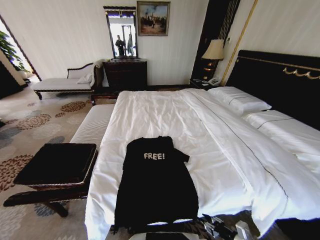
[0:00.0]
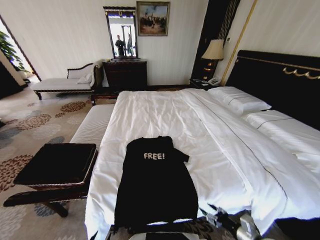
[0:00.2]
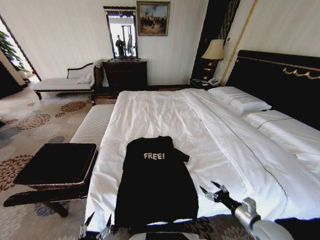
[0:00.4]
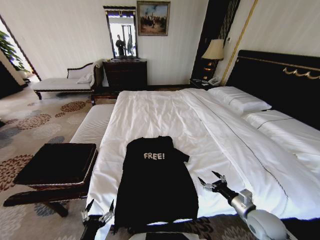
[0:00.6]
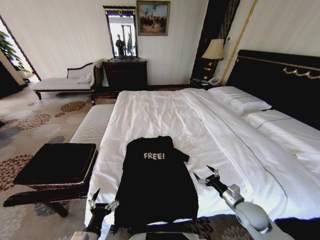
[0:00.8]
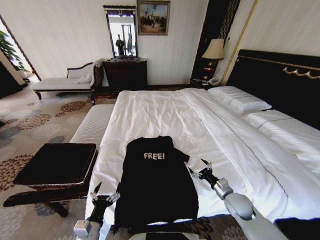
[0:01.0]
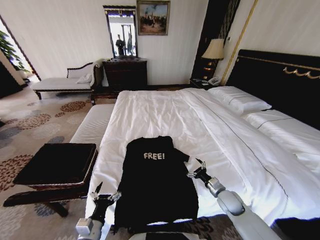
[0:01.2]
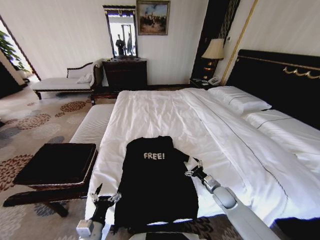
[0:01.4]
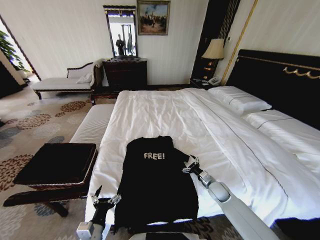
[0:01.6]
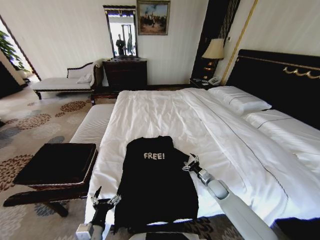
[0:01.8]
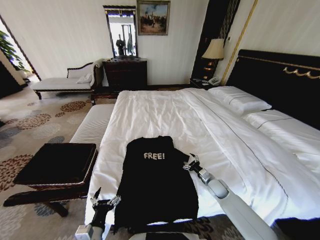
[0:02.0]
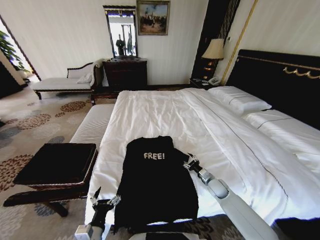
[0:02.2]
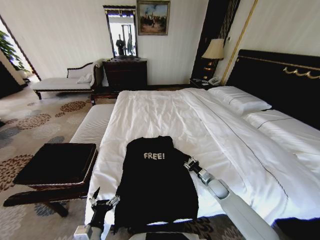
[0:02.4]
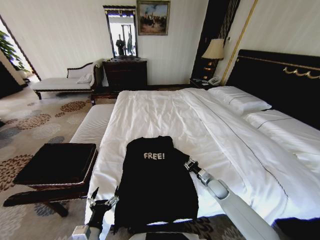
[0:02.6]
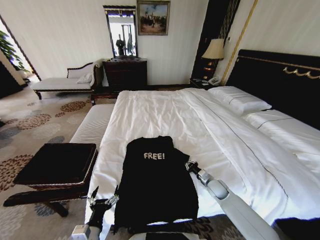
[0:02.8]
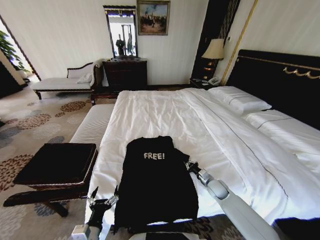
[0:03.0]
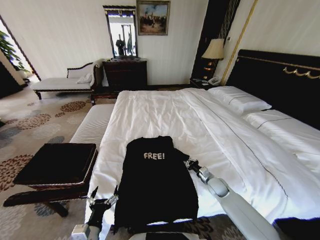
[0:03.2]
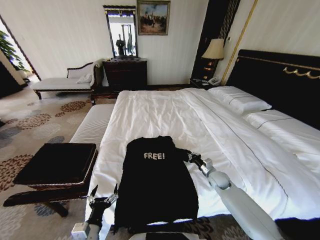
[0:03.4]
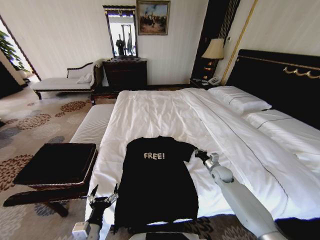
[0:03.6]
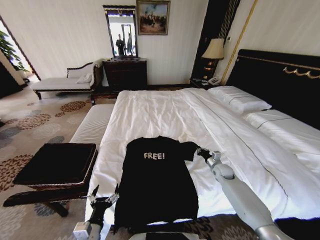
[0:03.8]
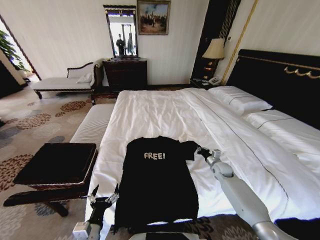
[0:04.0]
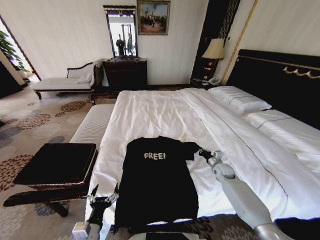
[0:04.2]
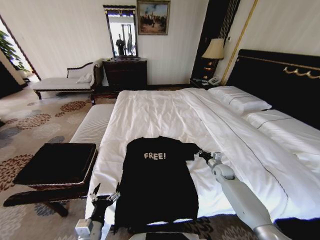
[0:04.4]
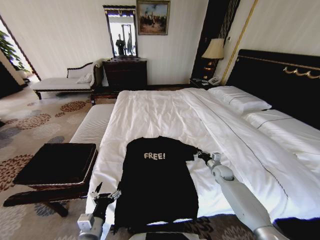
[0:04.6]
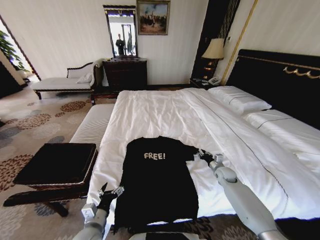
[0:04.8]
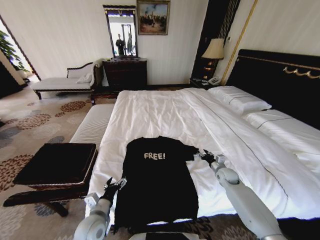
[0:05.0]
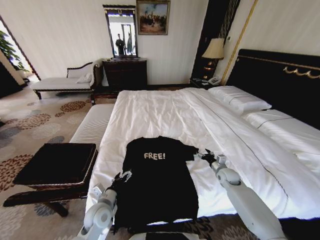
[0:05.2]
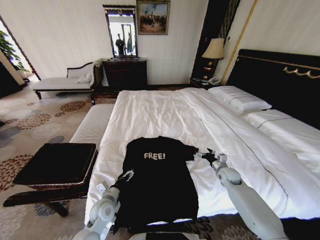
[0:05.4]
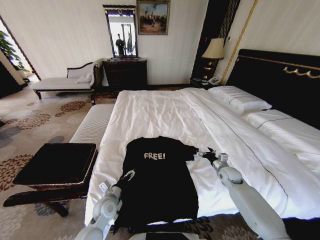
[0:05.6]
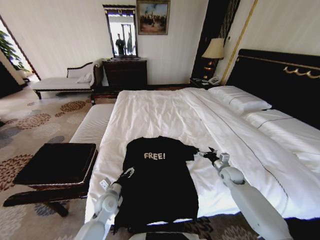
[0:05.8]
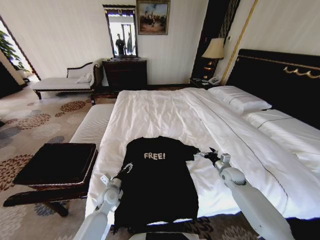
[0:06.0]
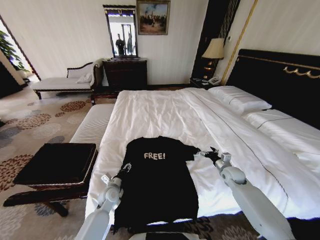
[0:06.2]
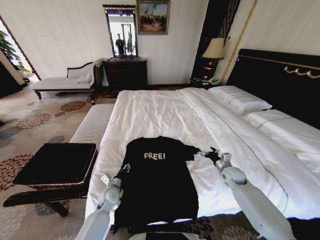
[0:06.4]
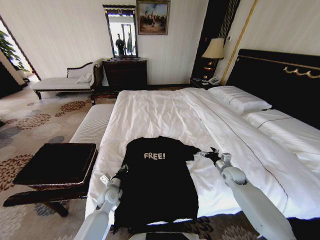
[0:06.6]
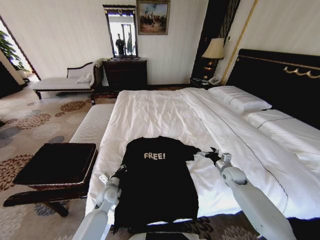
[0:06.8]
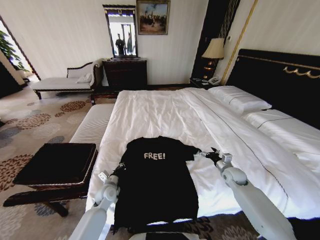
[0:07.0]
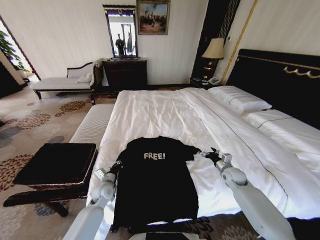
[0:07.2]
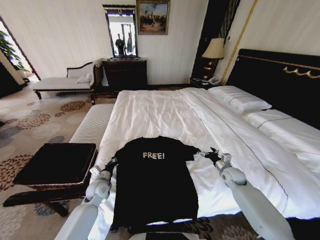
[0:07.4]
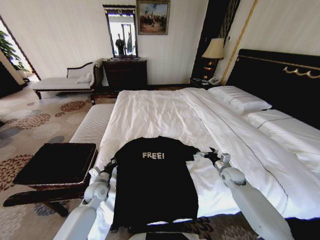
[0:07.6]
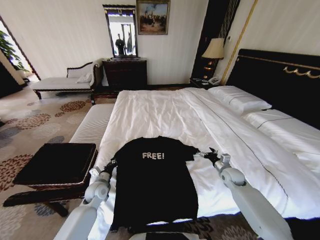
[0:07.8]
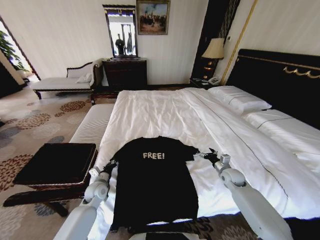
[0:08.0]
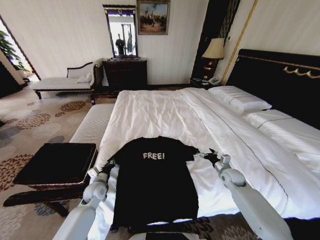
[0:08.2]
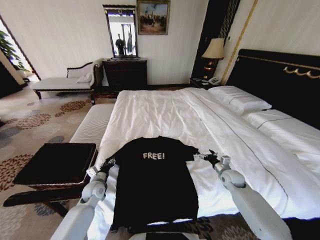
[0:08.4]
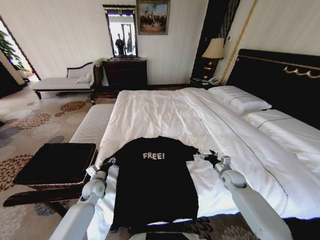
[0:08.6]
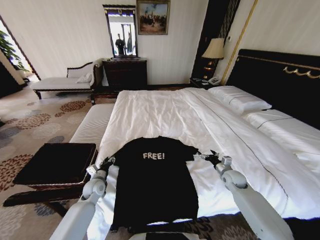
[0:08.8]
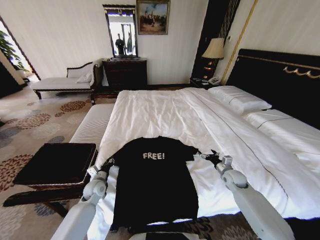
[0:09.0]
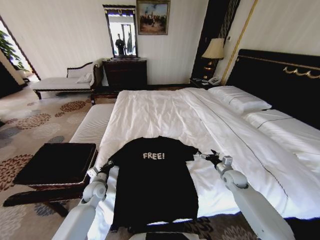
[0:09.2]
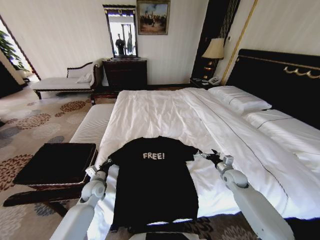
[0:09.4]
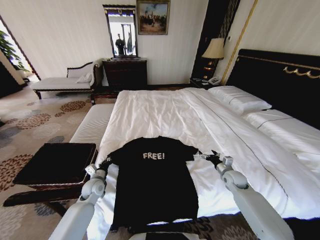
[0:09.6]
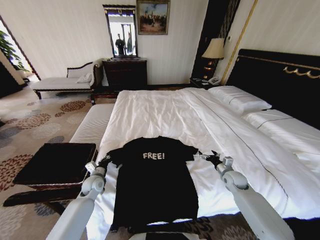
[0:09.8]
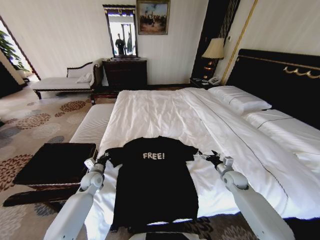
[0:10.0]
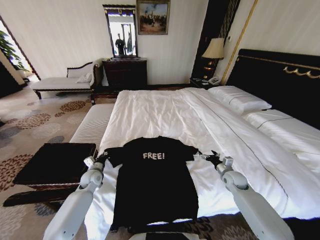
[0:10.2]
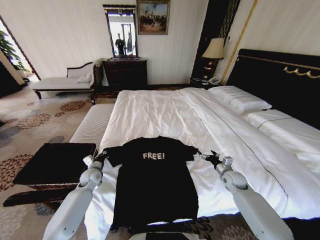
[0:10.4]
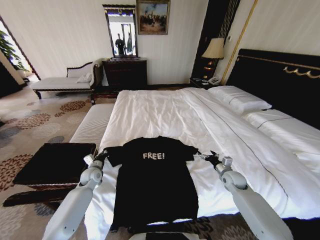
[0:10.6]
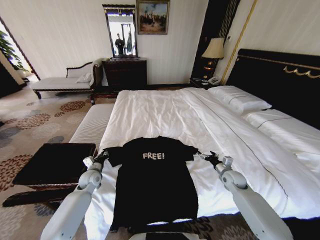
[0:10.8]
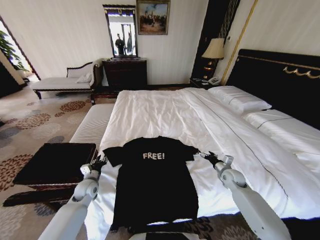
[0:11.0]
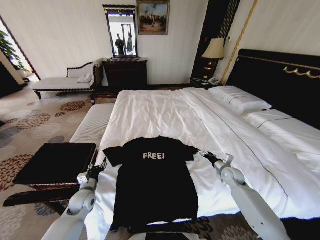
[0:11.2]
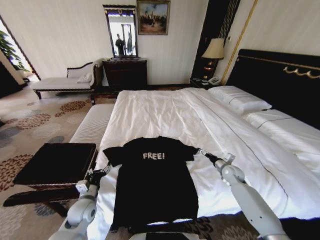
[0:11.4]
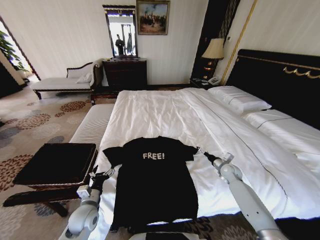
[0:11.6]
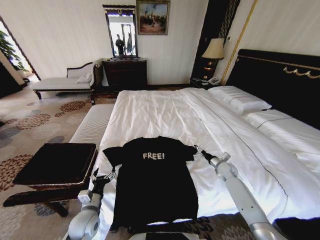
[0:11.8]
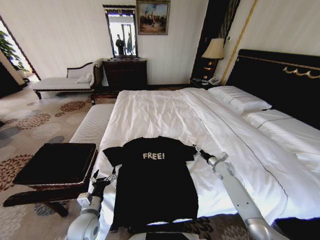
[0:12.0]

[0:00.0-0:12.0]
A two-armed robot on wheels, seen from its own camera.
Task of the whole recording: Fold the clothes on the bed and place them into the basket.
0:00.0 to 0:01.6: Both grippers travel together forward, some 20 cm. The left gripper opens up. The right gripper opens up.
0:01.6 to 0:03.0: The right gripper closes up.
0:03.0 to 0:04.4: The right gripper shifts approximately 10 cm forward and to the right.
0:04.4 to 0:06.0: The left gripper shifts about 20 cm forward. The right gripper opens up.
0:06.0 to 0:07.6: The left gripper heads to the left, covering about 5 cm, and closes up.
0:07.6 to 0:09.0: There are only small adjustments of the grippers.
0:09.0 to 0:10.4: The left gripper travels forward by roughly 5 cm.
0:10.4 to 0:12.0: The right gripper heads forward, covering about 5 cm, while the left gripper shifts roughly 20 cm backward, and opens.

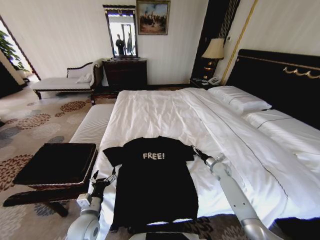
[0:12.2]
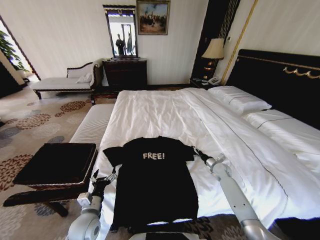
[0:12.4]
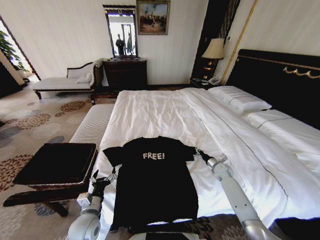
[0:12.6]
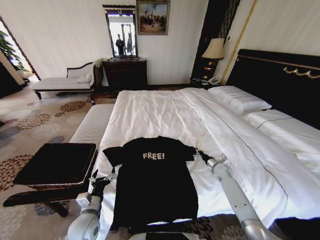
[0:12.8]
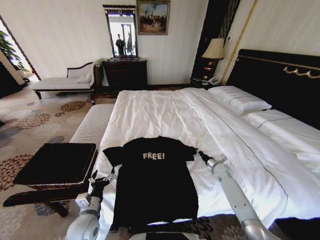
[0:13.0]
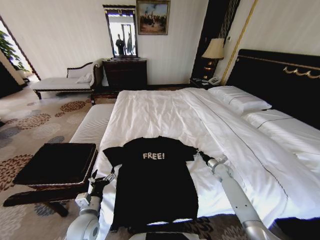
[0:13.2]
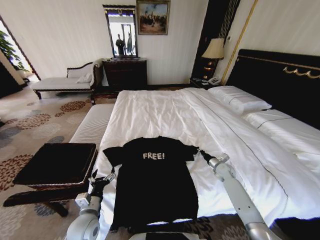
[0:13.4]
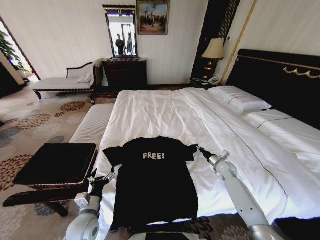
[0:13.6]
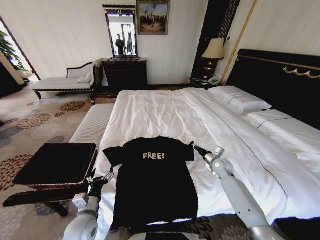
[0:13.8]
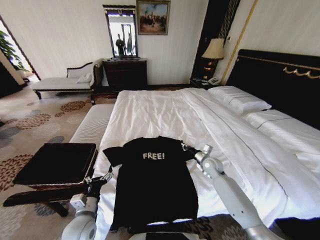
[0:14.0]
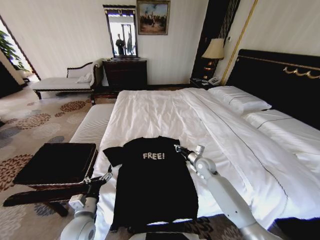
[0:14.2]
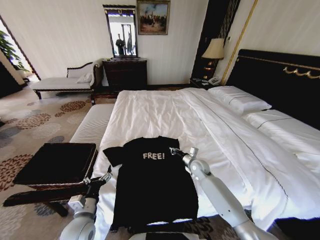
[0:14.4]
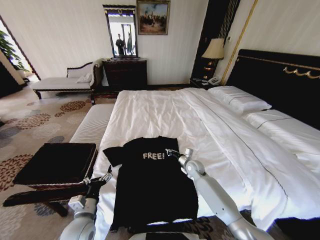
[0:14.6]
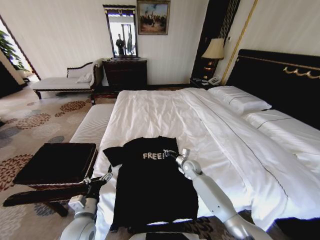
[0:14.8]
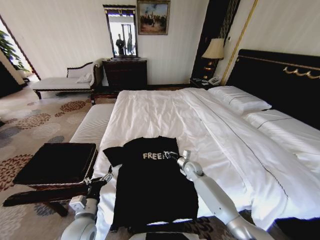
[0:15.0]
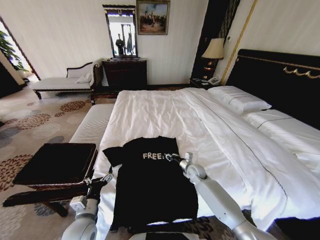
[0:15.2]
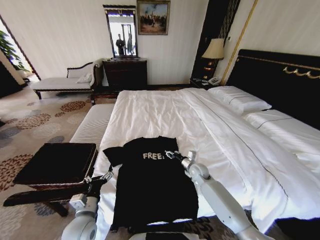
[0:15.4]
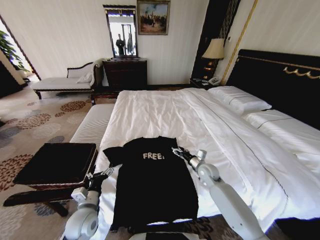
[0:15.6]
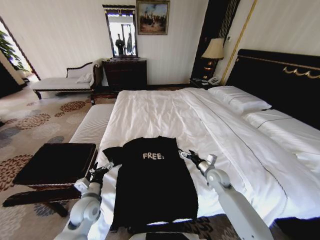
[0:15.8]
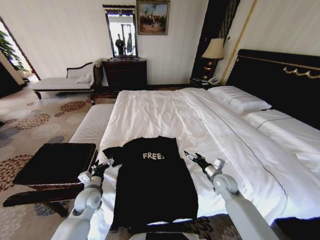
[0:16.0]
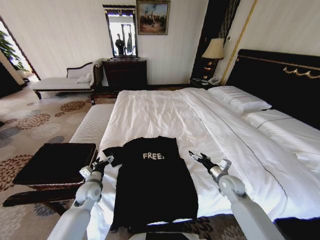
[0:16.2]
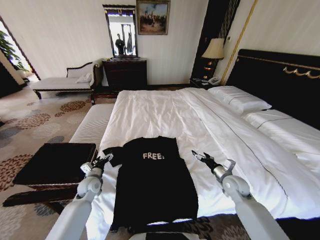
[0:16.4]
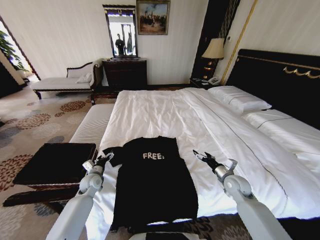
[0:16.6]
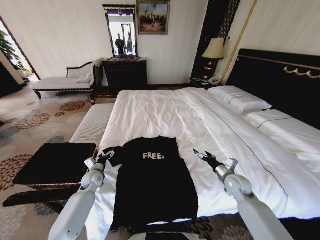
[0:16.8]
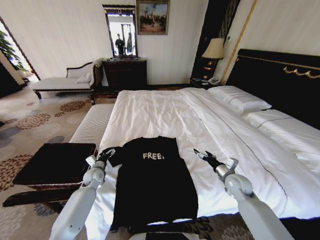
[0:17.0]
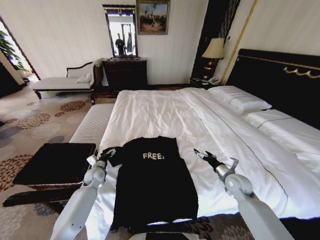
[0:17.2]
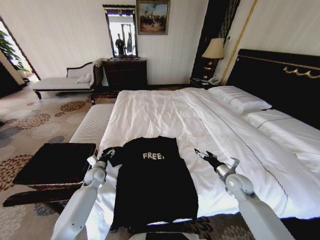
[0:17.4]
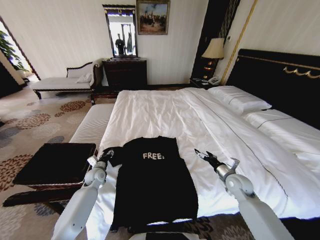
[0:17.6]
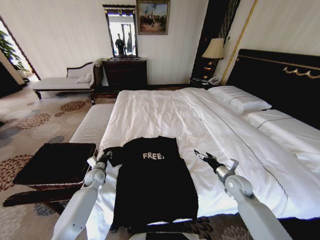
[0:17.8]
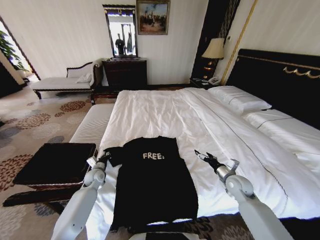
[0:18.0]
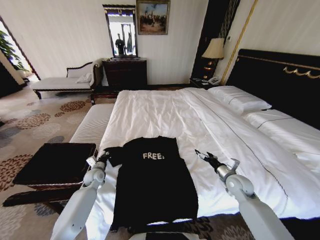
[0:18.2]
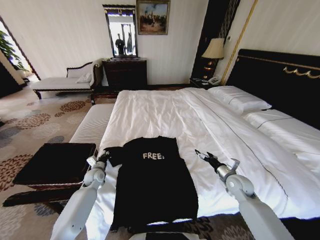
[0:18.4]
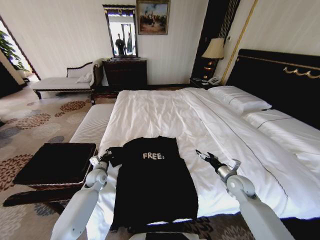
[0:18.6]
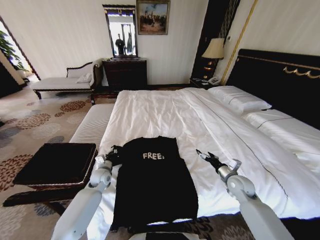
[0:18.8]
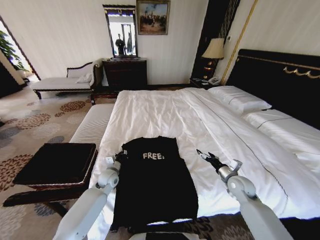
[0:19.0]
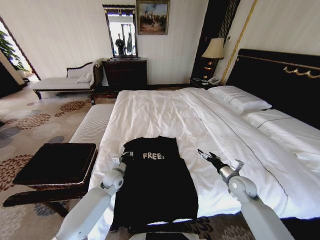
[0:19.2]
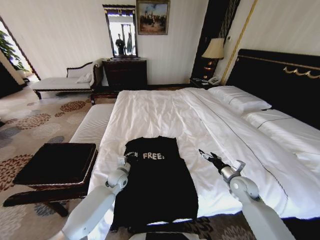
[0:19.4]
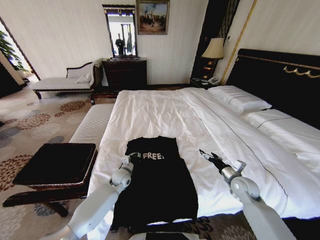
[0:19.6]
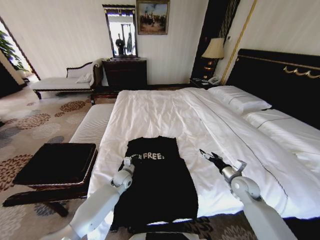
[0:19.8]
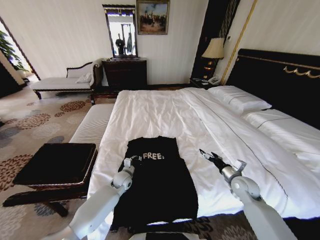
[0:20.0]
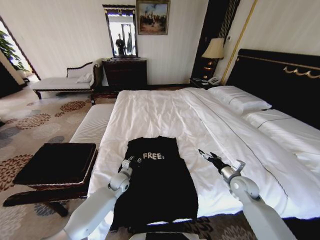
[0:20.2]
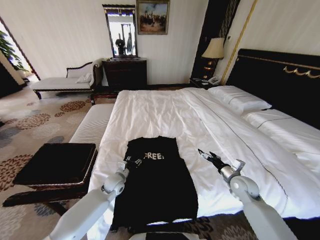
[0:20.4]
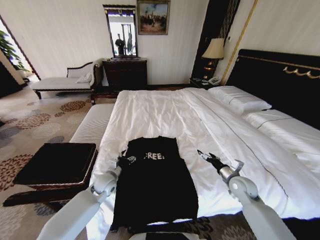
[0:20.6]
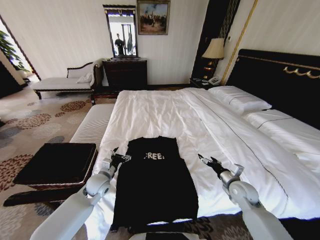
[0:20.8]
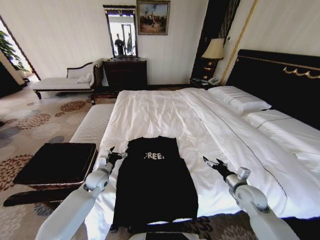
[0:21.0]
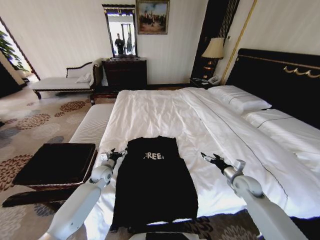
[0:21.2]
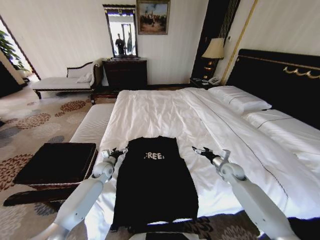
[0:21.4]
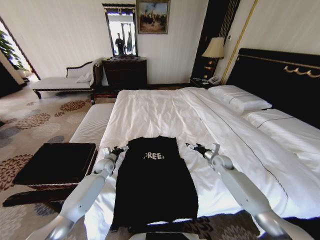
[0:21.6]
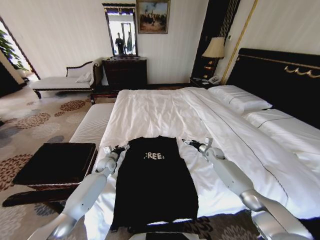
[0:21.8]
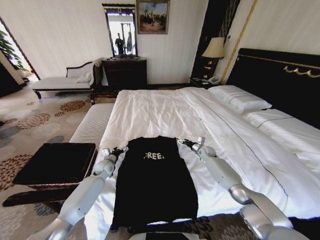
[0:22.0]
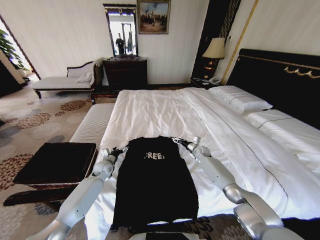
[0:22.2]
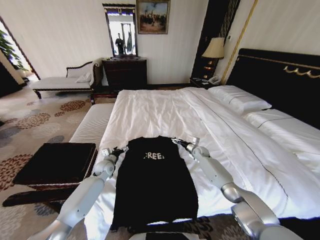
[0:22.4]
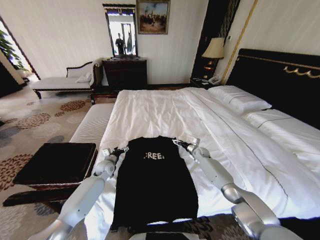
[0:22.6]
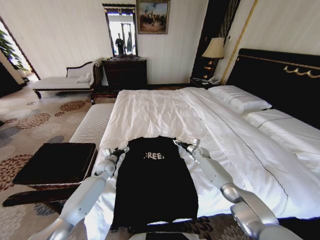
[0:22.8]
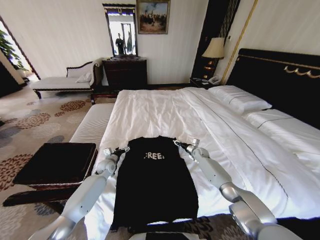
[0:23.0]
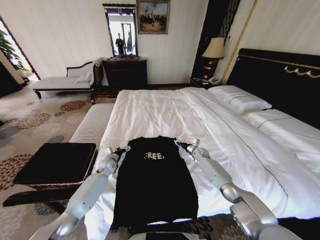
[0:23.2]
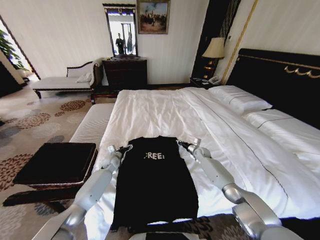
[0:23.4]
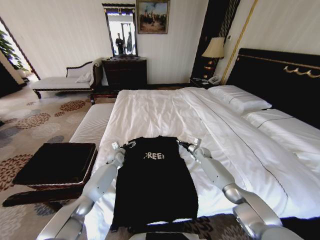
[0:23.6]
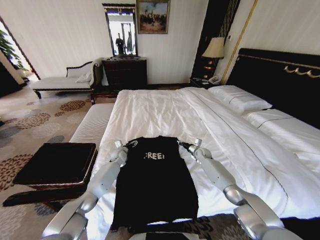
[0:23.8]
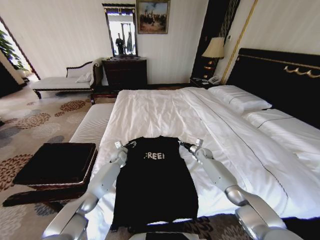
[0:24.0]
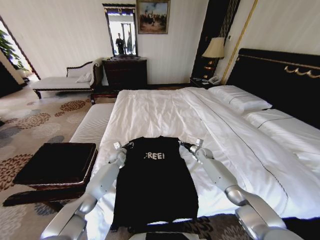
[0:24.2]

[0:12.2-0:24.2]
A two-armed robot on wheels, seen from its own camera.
Task of the whole recording: Fold the clothes on the bed and place them into the basket.
0:12.2 to 0:13.8: The right gripper moves upward, approximately 5 cm, and closes its fingers.
0:13.8 to 0:15.2: The right gripper travels to the left by some 15 cm.
0:15.2 to 0:16.6: The right gripper goes roughly 20 cm to the right, backward and upward, and opens; the left gripper heads forward, covering roughly 20 cm.
0:16.6 to 0:18.2: The left gripper closes.
0:18.2 to 0:19.8: The left gripper goes some 15 cm to the right.
0:19.8 to 0:21.2: The left gripper travels to the left by roughly 10 cm, and opens.
0:21.2 to 0:22.6: The right gripper moves forward and to the left, roughly 25 cm.
0:22.6 to 0:24.2: The right gripper closes. Meanwhile the left gripper goes some 10 cm forward, and closes.
